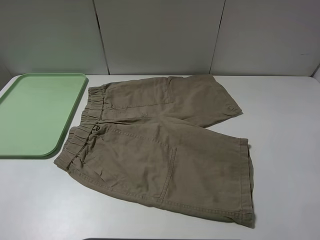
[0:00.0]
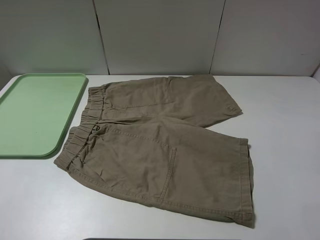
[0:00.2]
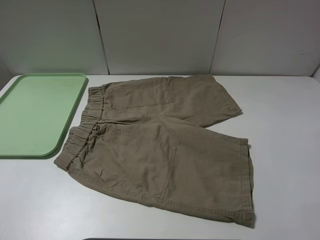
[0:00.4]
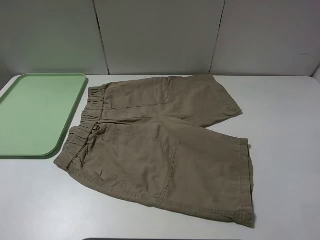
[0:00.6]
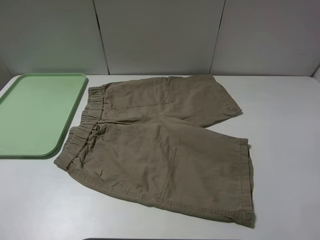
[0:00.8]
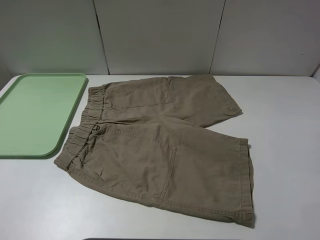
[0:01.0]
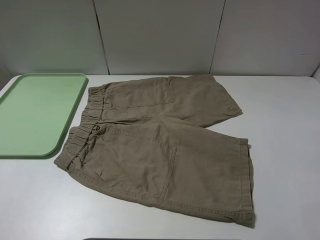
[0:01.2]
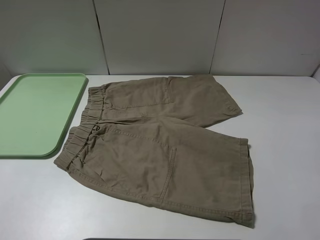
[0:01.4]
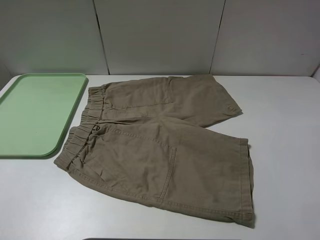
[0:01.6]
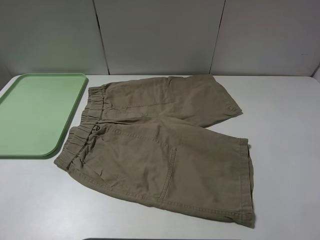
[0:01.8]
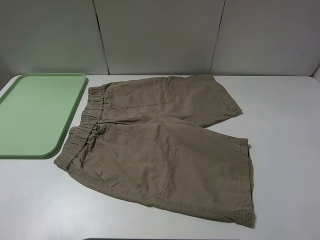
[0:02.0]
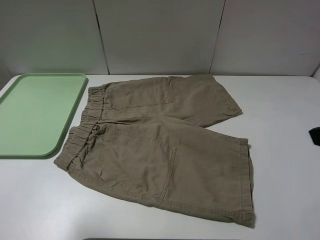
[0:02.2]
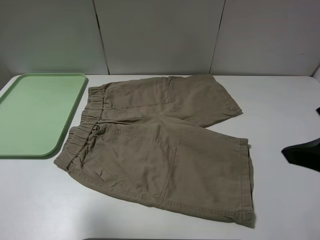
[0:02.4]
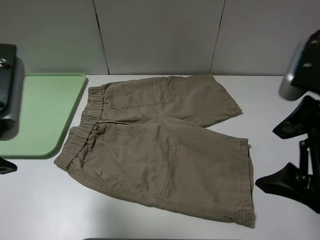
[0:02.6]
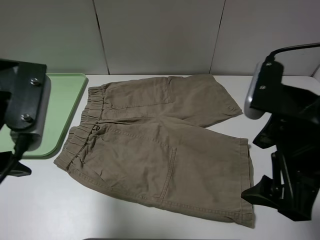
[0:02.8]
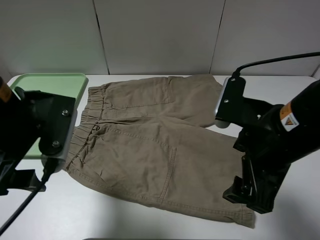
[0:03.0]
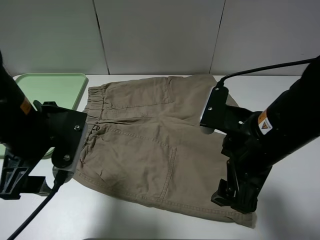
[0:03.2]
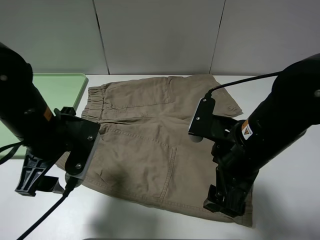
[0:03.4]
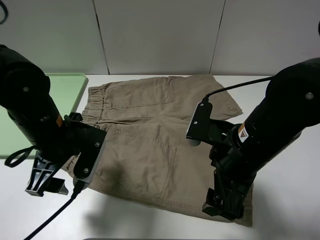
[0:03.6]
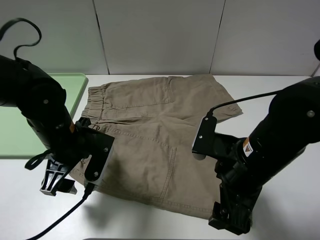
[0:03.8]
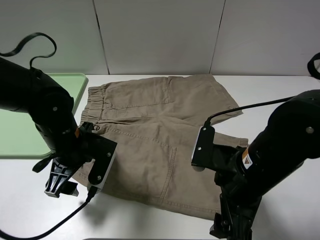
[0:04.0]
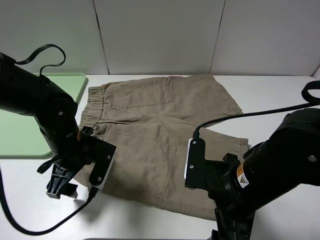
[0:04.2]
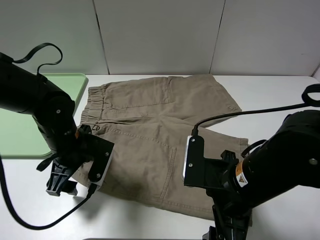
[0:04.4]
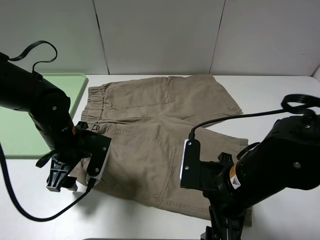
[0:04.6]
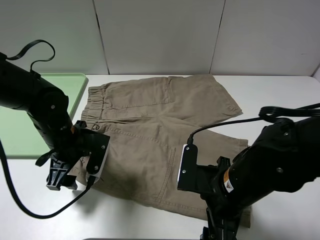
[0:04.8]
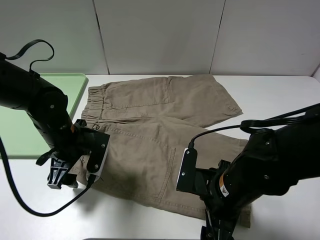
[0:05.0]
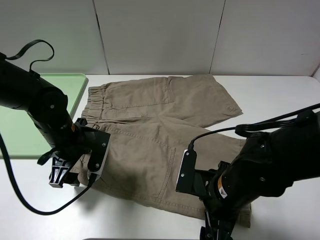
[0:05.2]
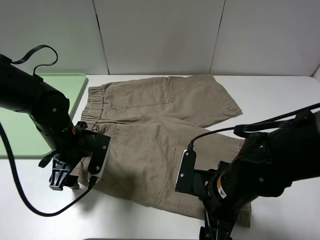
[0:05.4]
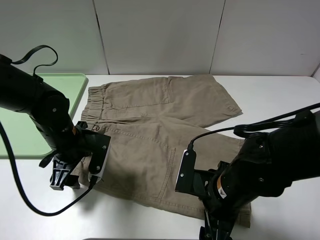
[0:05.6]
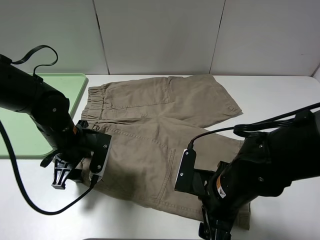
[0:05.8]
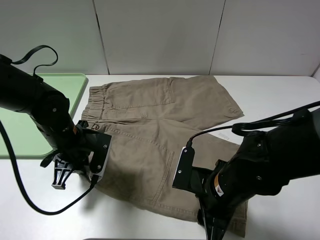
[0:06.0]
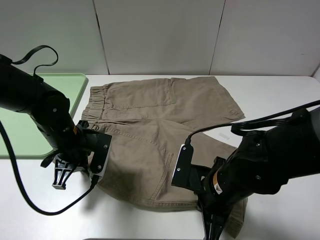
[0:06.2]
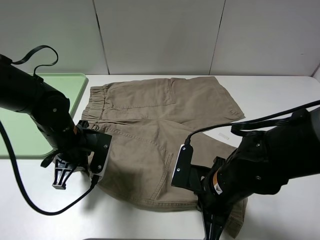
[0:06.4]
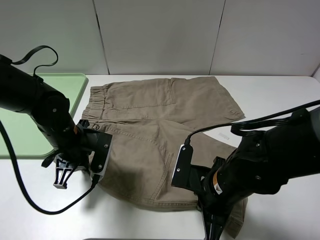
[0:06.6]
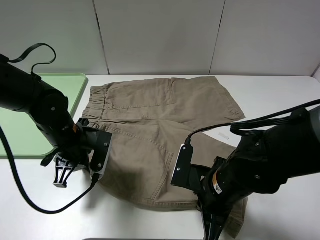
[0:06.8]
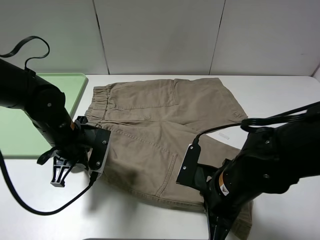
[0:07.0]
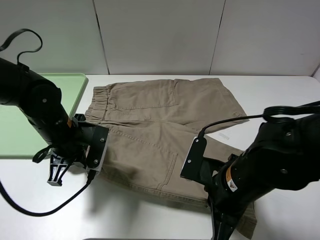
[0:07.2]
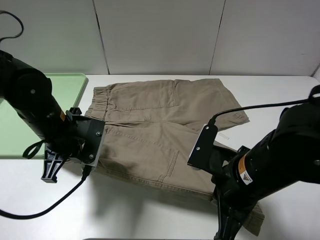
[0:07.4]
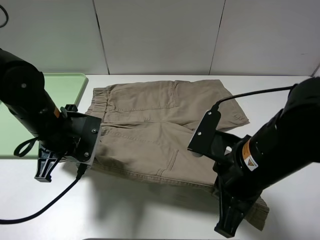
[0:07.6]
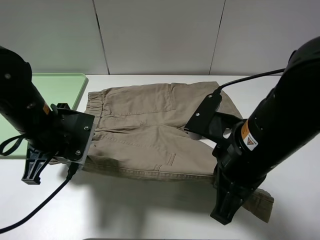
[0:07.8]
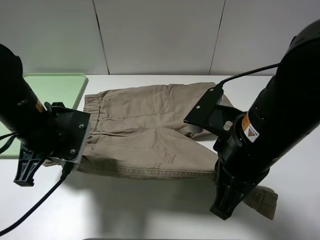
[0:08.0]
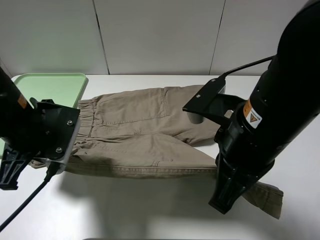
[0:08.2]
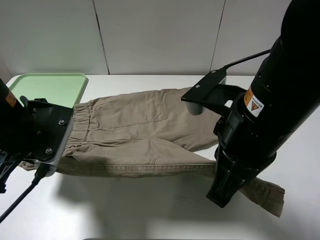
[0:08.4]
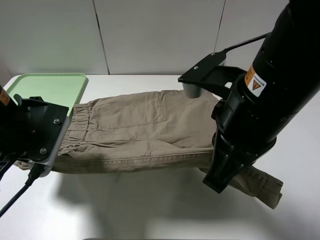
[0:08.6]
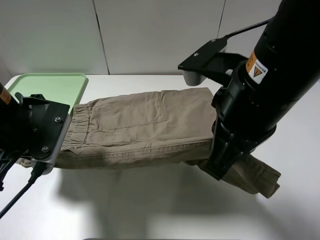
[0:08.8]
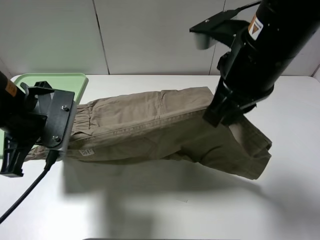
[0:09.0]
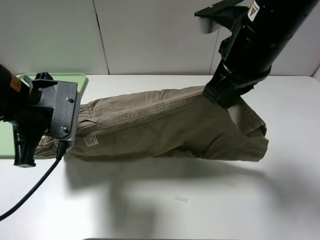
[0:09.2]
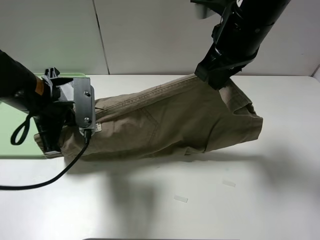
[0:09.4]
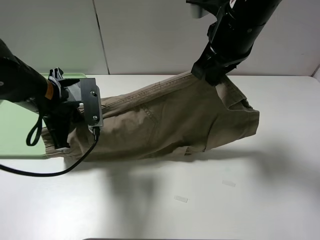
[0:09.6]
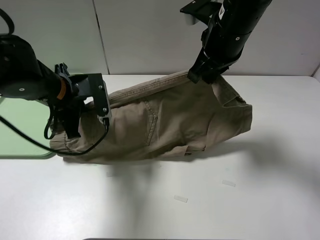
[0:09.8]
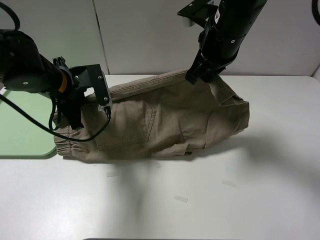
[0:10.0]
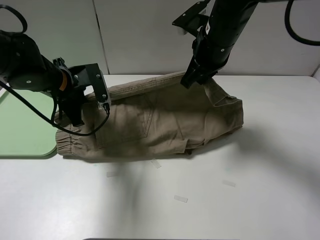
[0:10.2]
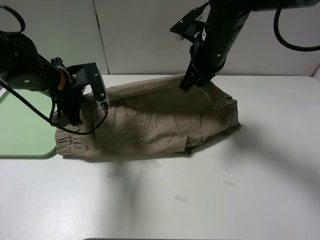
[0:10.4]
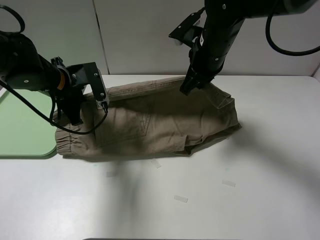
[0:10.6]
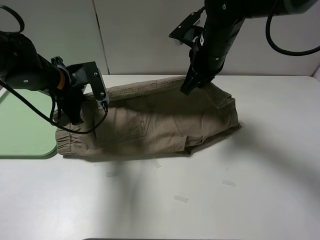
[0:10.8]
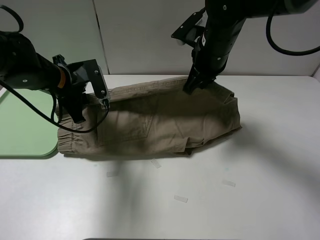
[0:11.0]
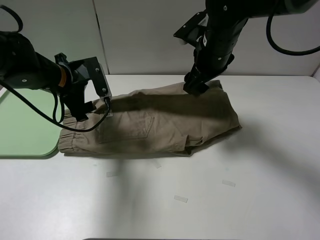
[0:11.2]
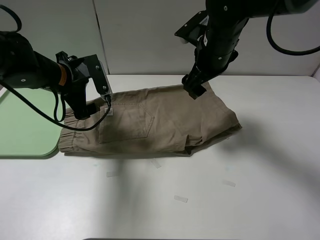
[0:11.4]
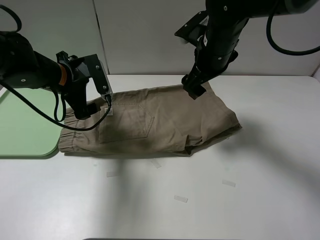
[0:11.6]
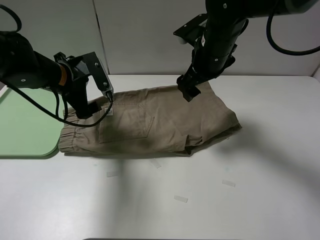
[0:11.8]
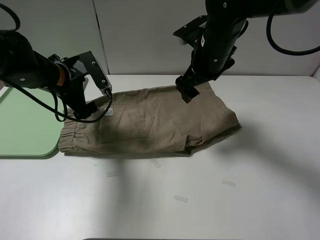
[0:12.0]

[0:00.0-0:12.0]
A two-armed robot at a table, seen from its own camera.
Task of the whole recording: fold the khaki jeans in half with two grippers, then fold them in half again, and use the left claw to place the folded fold khaki jeans on the tray.
Step, 0:00.0 to 0:06.2: Grasp the khaki trousers with the left gripper.
Step, 0:06.4 to 0:11.2: Fold the khaki trousers upwards with the left gripper.
0:01.6 to 0:03.0: The right gripper goes some 20 cm to the left, forward and downward; the left gripper heads forward and to the right, covering about 20 cm.
0:03.0 to 0:04.4: The left gripper goes approximately 15 cm downward and forward; the right gripper shifts roughly 10 cm downward.
0:04.4 to 0:06.0: The right gripper goes about 5 cm downward, and closes up. Meanwhile the left gripper closes its fingers.
0:06.0 to 0:07.6: The left gripper is displaced upward by approximately 5 cm. Meanwhile the right gripper travels upward by some 10 cm, and closes its fingers.
0:07.6 to 0:09.0: The left gripper shifts some 5 cm upward, while the right gripper is displaced upward and forward by approximately 15 cm.
0:09.0 to 0:10.4: Both grippers travel together forward and downward, approximately 15 cm.
0:10.4 to 0:12.0: The right gripper opens; the left gripper opens.

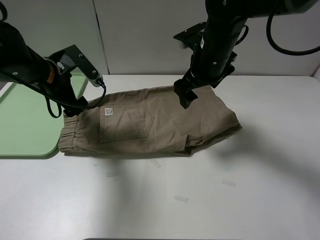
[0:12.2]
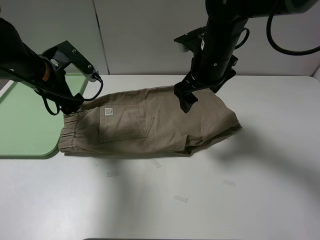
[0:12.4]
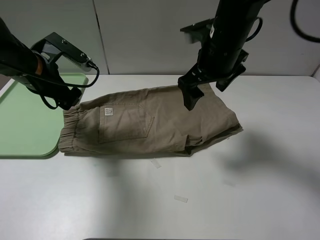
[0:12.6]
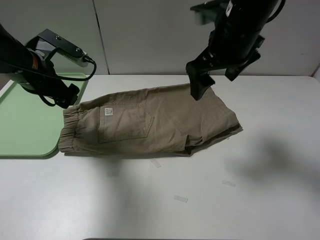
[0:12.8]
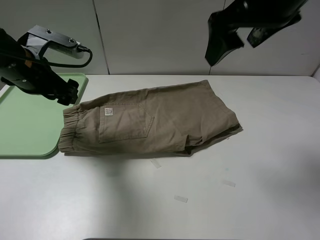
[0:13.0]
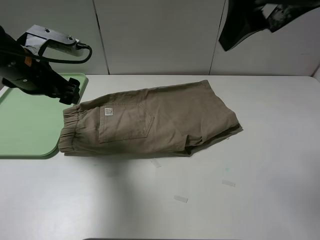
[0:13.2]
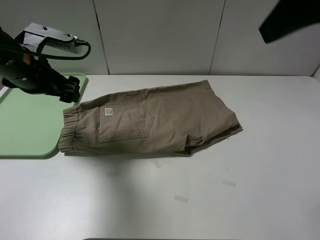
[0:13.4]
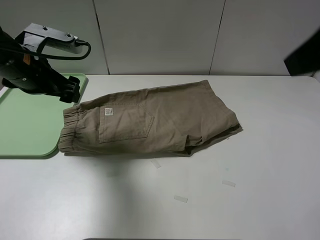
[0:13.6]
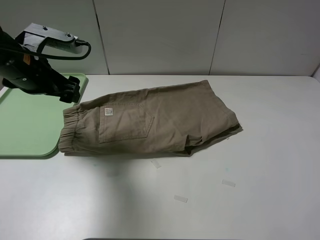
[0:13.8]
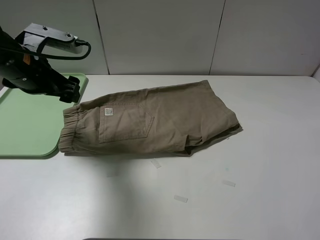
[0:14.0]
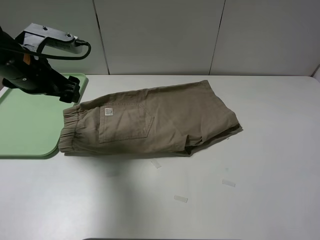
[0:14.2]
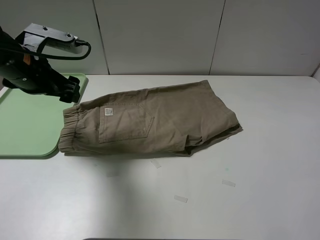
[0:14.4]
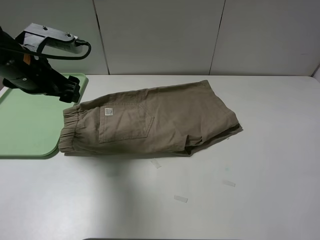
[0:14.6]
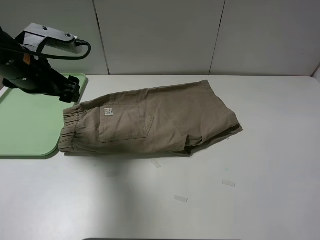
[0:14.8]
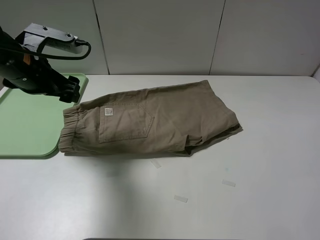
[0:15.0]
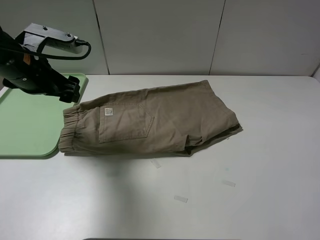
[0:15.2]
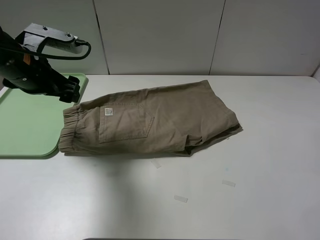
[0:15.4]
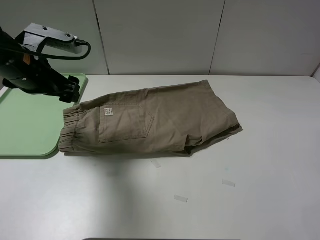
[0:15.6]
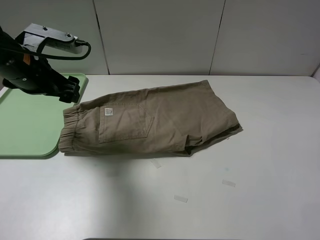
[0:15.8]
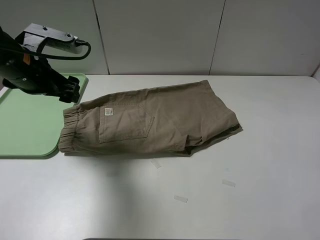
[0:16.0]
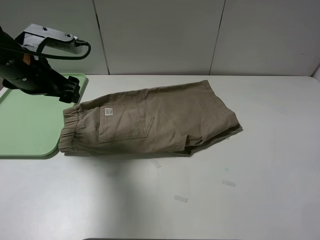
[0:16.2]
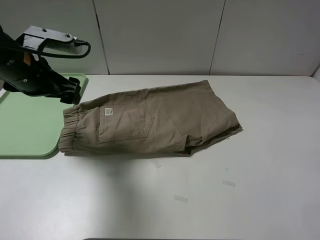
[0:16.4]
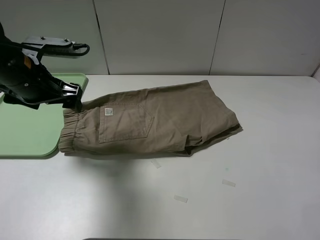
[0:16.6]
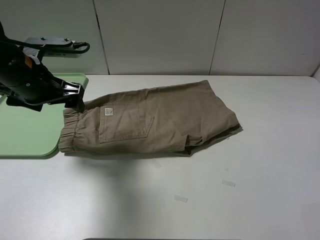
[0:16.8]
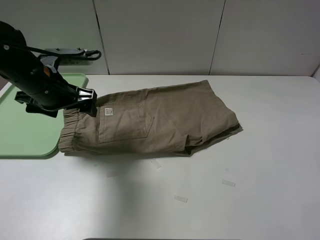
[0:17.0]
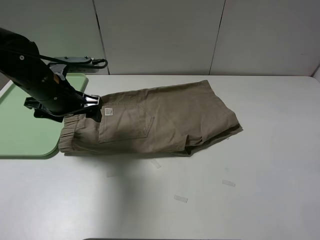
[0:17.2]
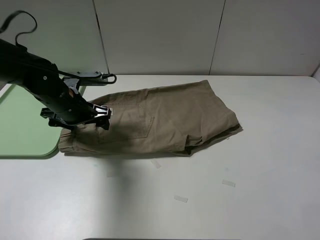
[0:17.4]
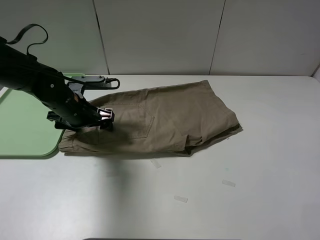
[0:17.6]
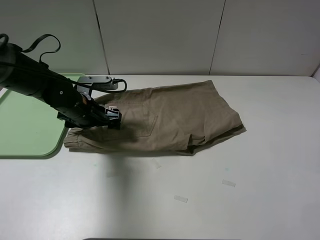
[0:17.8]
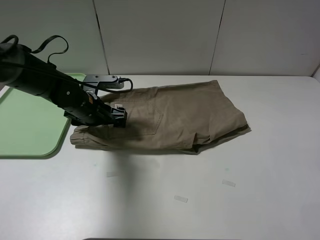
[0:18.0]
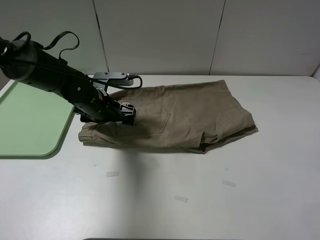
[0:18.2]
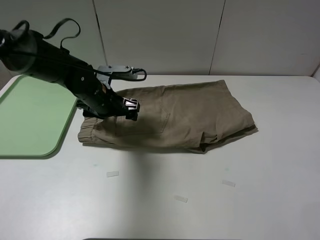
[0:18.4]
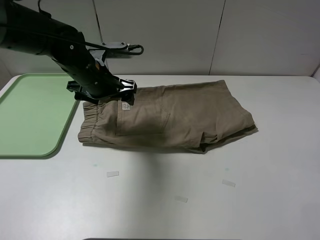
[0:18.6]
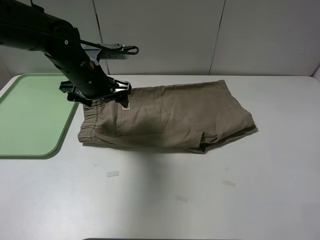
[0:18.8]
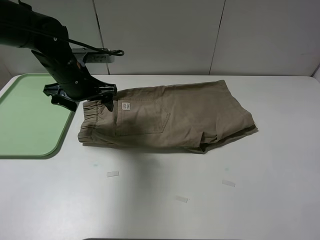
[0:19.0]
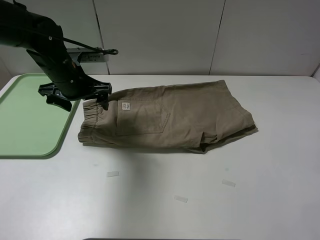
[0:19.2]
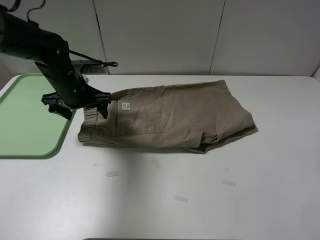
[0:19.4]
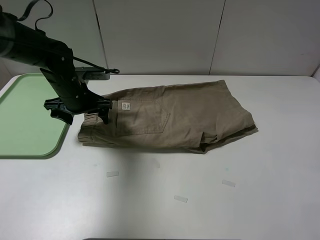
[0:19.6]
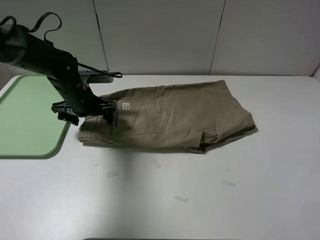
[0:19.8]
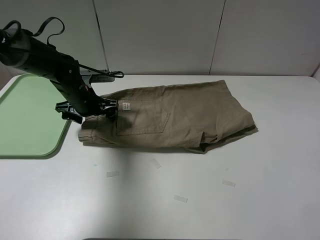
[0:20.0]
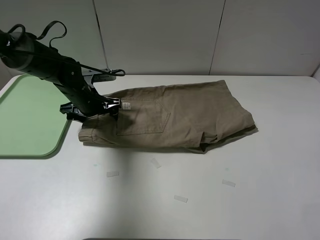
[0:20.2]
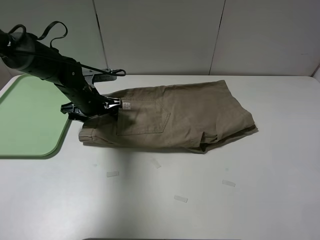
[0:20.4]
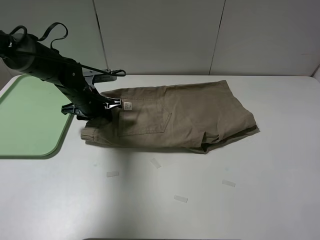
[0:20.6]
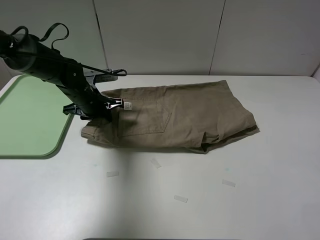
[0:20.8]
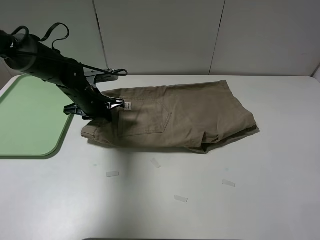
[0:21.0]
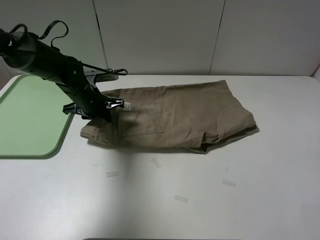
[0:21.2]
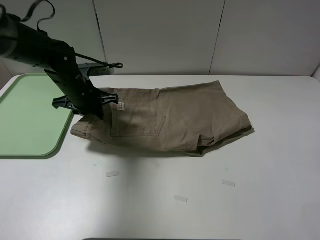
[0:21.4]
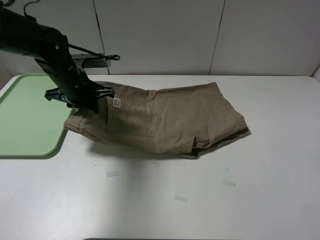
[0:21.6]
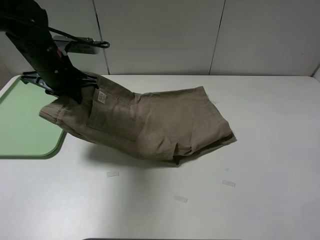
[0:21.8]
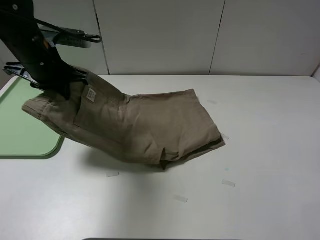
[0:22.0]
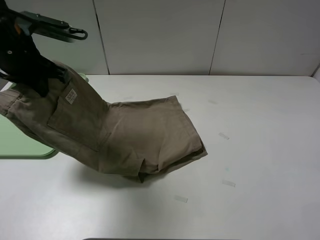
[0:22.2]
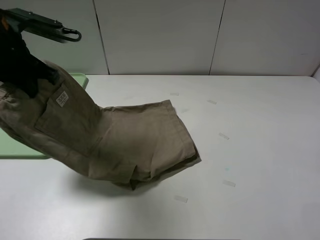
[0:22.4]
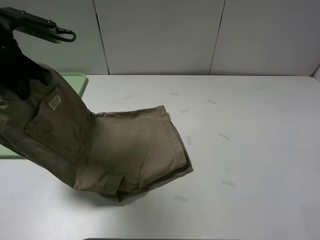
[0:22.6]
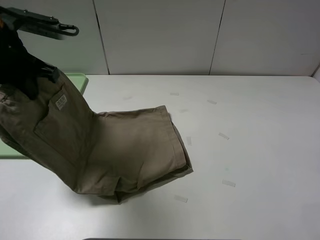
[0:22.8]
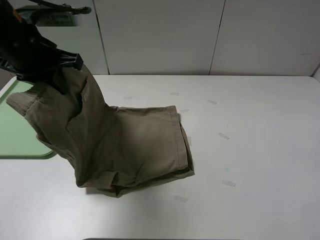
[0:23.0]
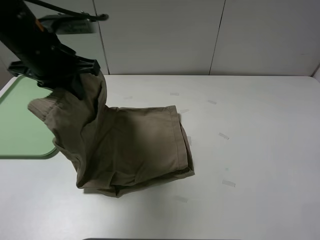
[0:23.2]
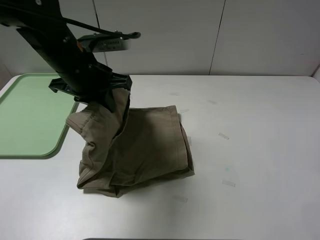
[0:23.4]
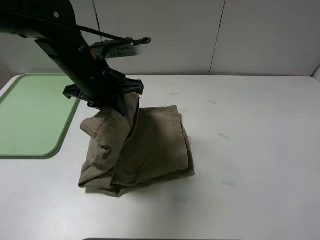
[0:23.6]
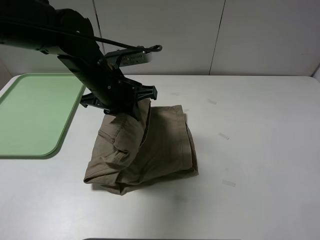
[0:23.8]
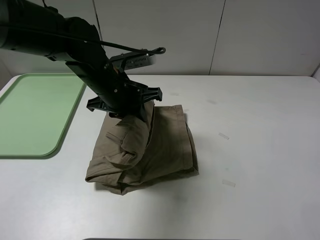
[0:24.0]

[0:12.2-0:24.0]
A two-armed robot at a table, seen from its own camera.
Task of the whole recording: fold the khaki jeans in half with two grippers, then fold them in half again, and use the left claw to place the folded fold khaki jeans on the tray.
Step, 0:12.2 to 0:20.8: Grasp the khaki trousers with the left gripper.
0:12.2 to 0:13.6: The left gripper changes place by approximately 5 cm. The right gripper shifts about 30 cm backward, upward and to the right.
0:13.6 to 0:15.2: The right gripper goes about 20 cm backward, downward and to the right.
0:16.6 to 0:18.2: The left gripper is displaced downward, to the right and forward by approximately 15 cm.
0:18.2 to 0:19.6: The left gripper goes approximately 5 cm to the left, and reaches approximately 10 cm upward, then returns.
0:19.6 to 0:21.0: The left gripper closes.
0:21.0 to 0:22.6: The left gripper shifts approximately 20 cm upward and backward.
0:22.6 to 0:24.0: The left gripper is displaced to the right and downward by approximately 20 cm.
